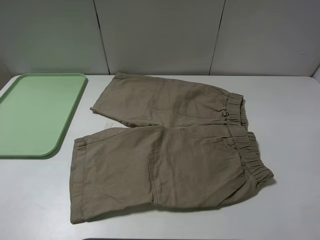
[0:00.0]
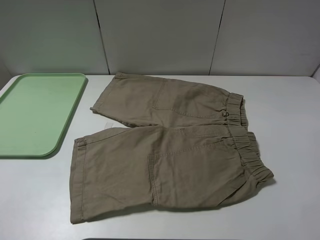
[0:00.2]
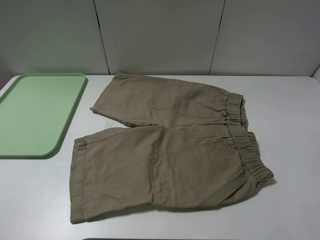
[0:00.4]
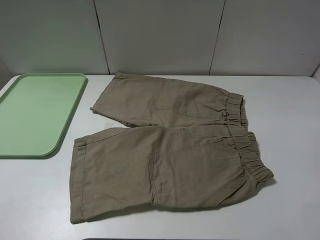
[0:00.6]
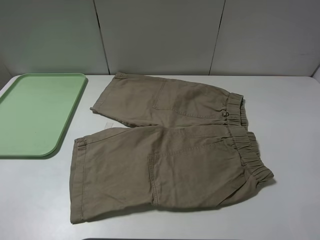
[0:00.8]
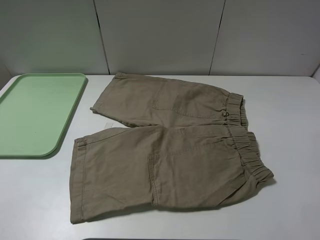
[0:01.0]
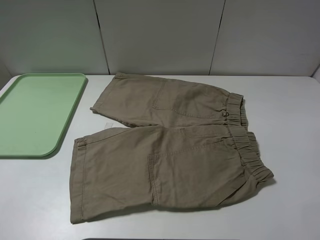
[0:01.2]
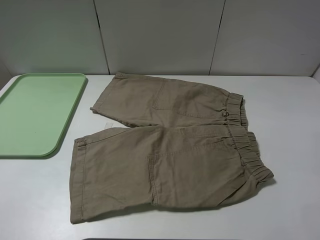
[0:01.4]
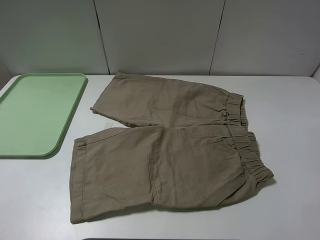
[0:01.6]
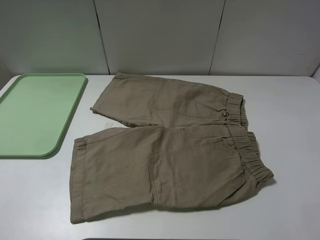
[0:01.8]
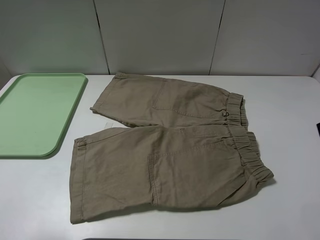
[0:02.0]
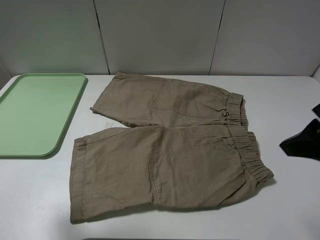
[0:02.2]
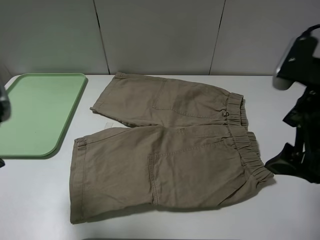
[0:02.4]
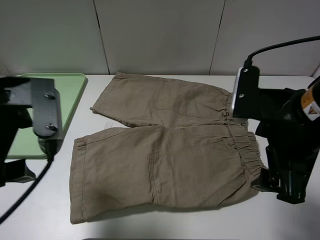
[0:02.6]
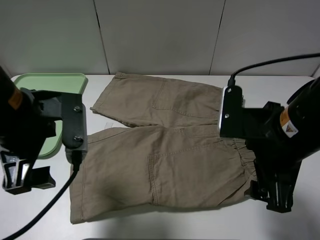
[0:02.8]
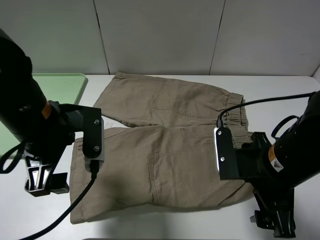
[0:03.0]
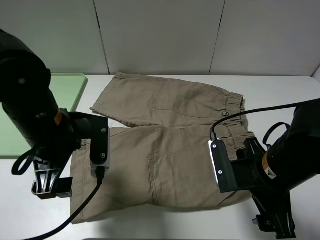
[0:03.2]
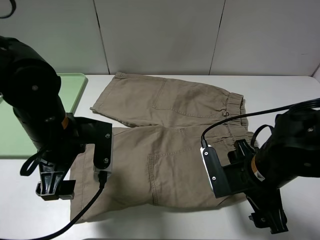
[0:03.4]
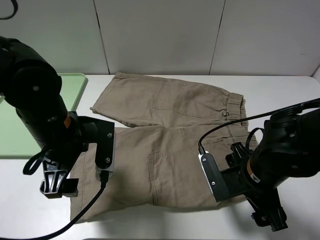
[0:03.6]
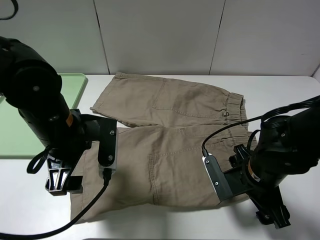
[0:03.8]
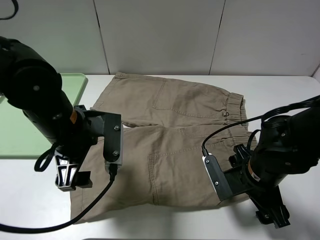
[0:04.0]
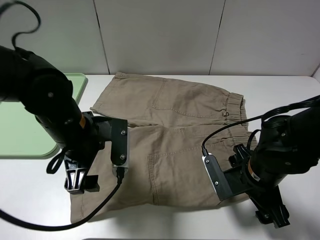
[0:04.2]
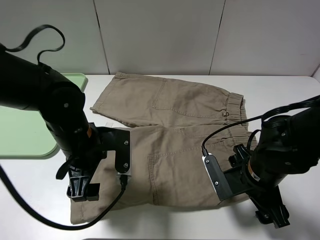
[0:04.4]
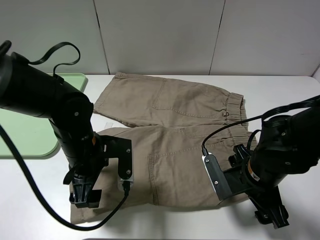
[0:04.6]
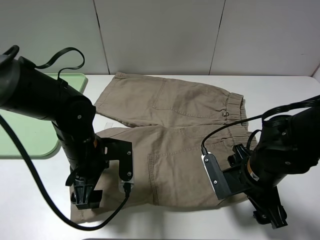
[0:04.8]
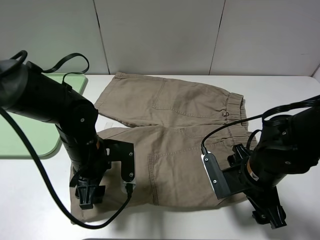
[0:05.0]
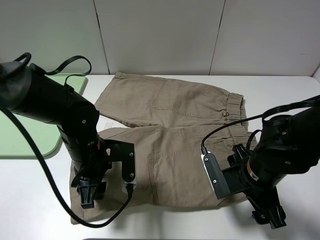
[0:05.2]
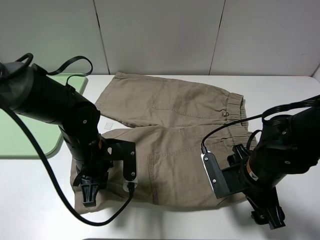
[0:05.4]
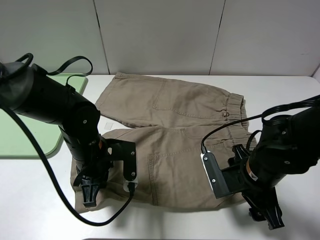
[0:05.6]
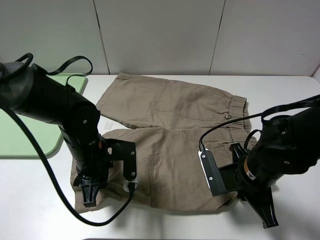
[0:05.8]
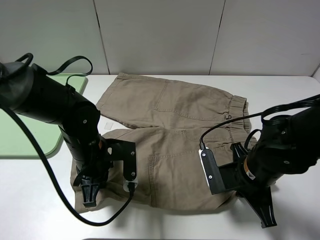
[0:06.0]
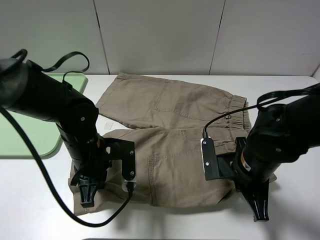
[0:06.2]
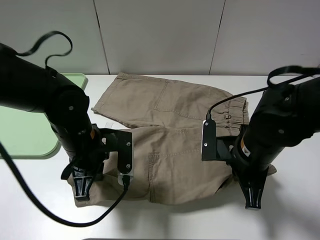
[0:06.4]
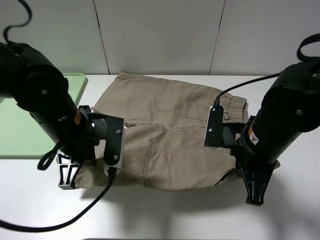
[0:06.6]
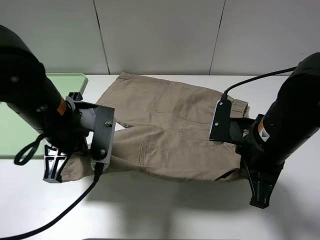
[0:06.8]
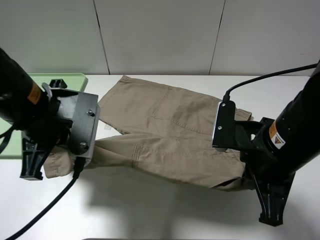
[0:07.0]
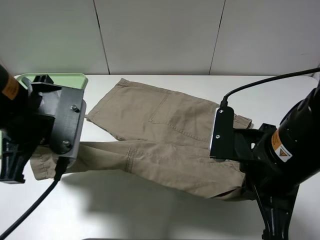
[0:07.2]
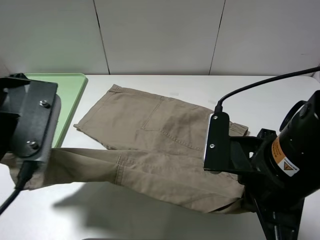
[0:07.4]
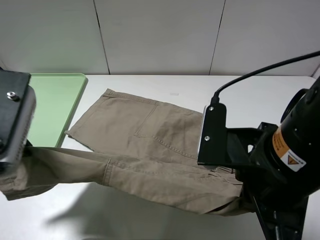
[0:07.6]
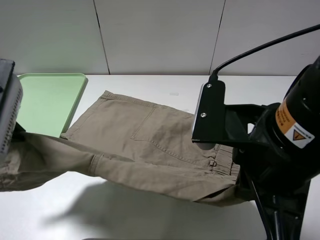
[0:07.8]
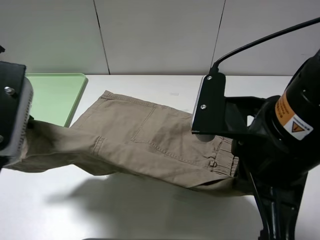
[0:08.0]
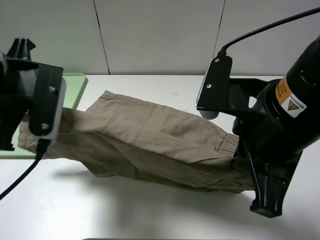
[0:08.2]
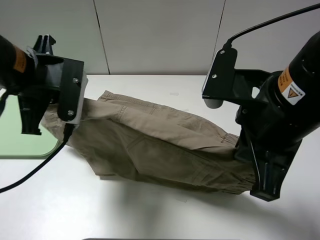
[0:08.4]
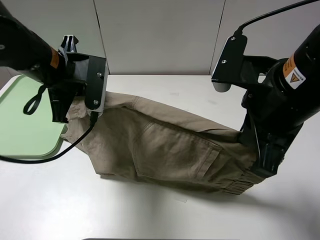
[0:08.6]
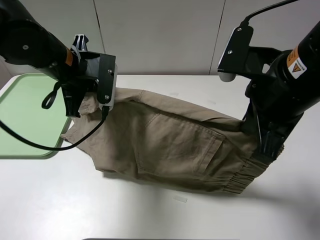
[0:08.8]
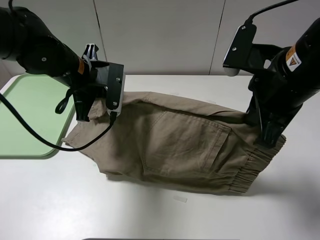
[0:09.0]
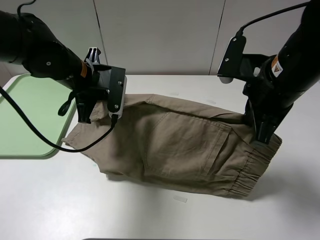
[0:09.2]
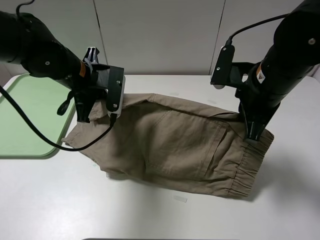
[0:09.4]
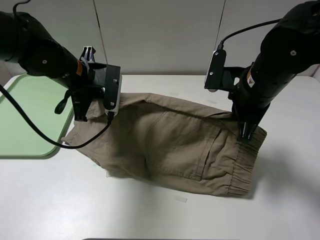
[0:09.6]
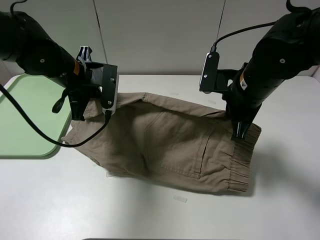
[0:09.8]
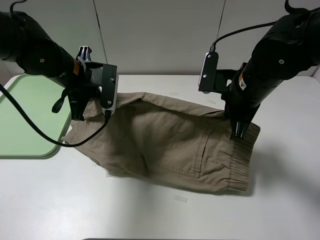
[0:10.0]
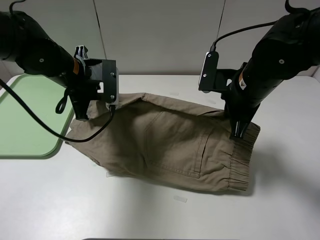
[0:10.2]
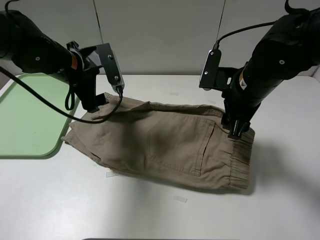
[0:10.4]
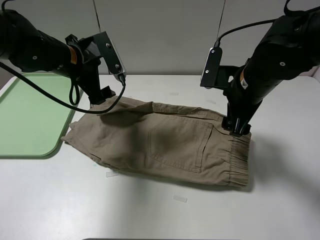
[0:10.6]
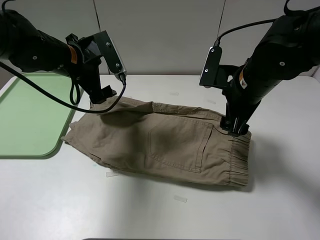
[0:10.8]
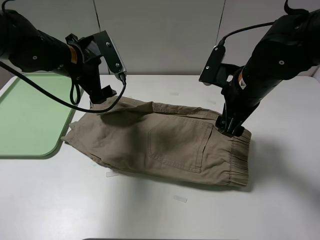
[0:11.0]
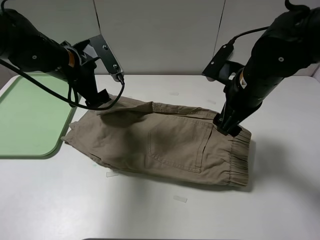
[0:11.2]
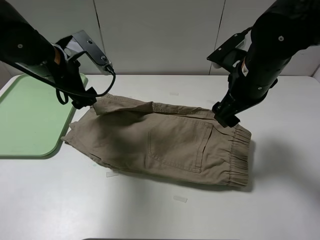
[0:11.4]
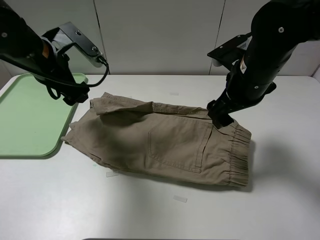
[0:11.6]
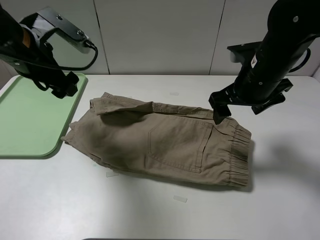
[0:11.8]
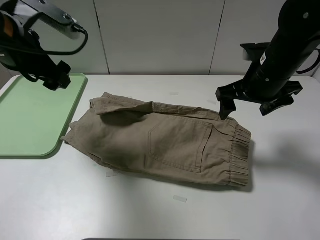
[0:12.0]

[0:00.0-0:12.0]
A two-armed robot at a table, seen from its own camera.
Task of the whole recording: fold the khaki jeans in half with two grippers, then fold them in half again, and use the left claw to place the folded fold khaki jeans on the tray.
Step, 0:00.0 to 0:05.8: Grasp the khaki trousers with the left gripper.
Step, 0:06.0 to 0:10.4: Fold the khaki trousers upwards with the left gripper.
0:01.6 to 0:03.0: The left gripper goes approximately 25 cm forward, to the right and downward; the right gripper shifts about 20 cm downward, forward and to the left.
0:03.0 to 0:04.4: The grippers both shift downward by some 5 cm.
0:04.4 to 0:06.0: The left gripper closes, while the right gripper closes.
0:06.0 to 0:07.6: The right gripper shifts roughly 15 cm upward and backward. The left gripper goes about 20 cm upward.
0:07.6 to 0:09.0: The left gripper is displaced forward and downward by some 20 cm. Meanwhile the right gripper moves forward, roughly 10 cm.
0:09.0 to 0:10.4: The right gripper moves downward and forward, roughly 10 cm, and opens up, while the left gripper opens.
0:10.4 to 0:12.0: The left gripper is displaced upward, to the left and backward by approximately 10 cm.

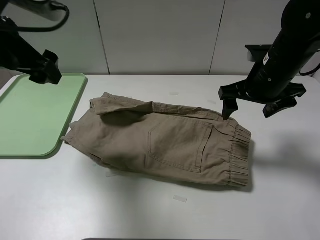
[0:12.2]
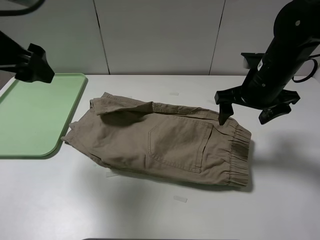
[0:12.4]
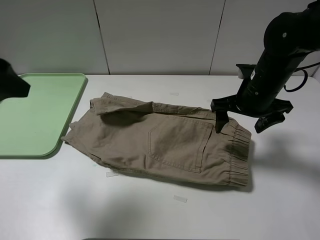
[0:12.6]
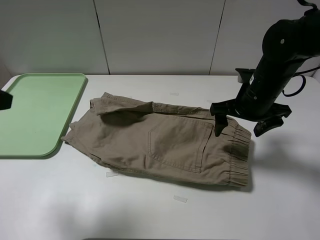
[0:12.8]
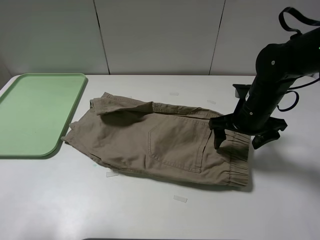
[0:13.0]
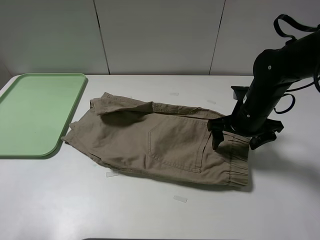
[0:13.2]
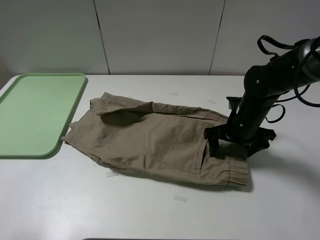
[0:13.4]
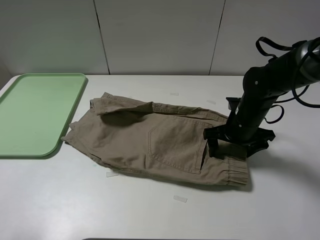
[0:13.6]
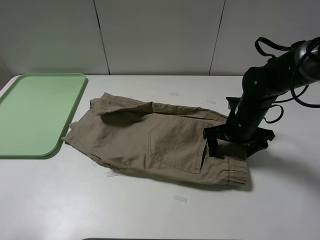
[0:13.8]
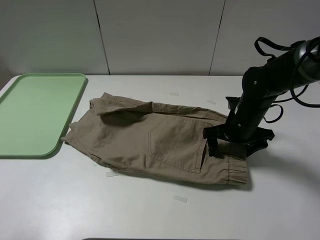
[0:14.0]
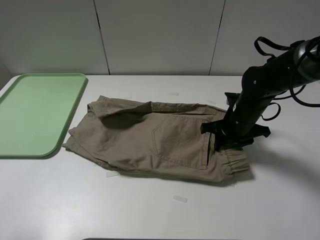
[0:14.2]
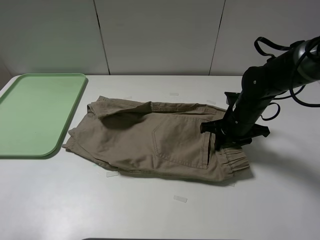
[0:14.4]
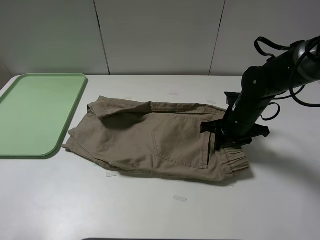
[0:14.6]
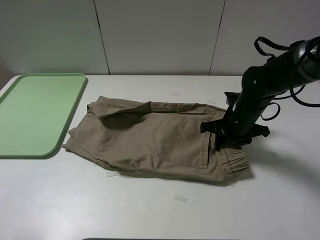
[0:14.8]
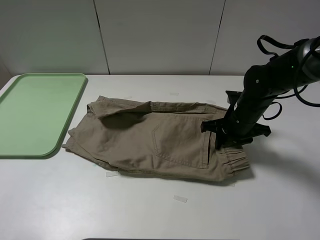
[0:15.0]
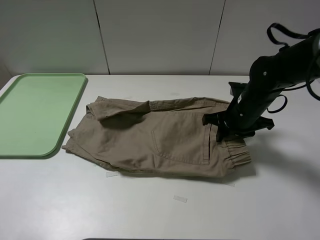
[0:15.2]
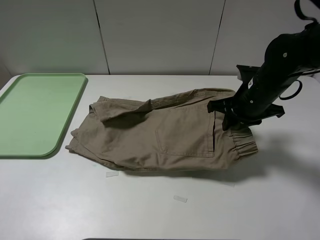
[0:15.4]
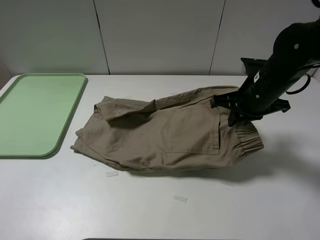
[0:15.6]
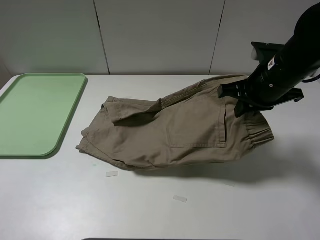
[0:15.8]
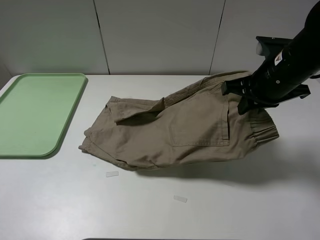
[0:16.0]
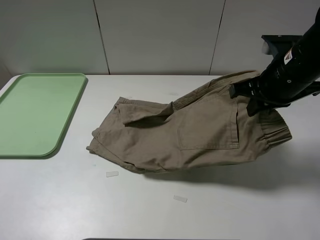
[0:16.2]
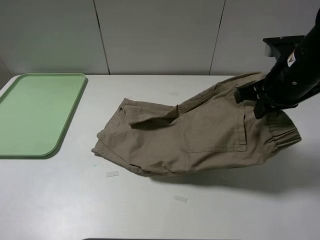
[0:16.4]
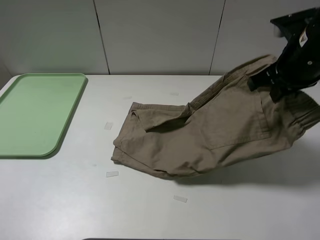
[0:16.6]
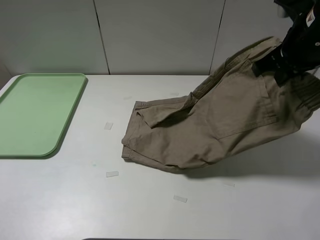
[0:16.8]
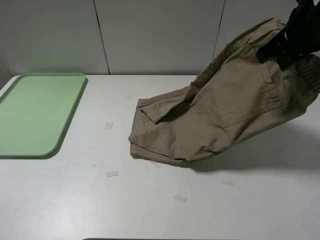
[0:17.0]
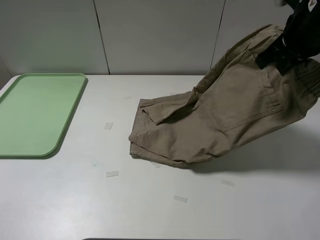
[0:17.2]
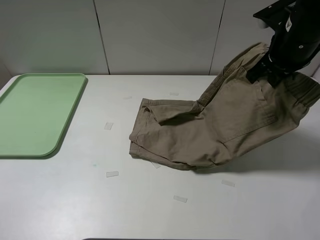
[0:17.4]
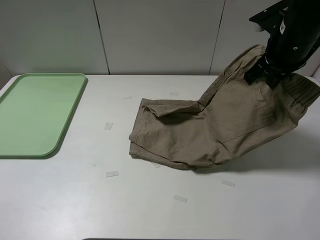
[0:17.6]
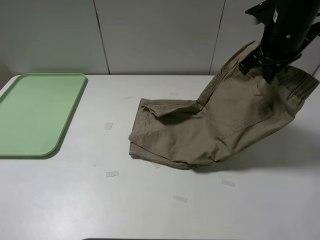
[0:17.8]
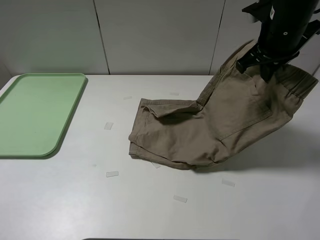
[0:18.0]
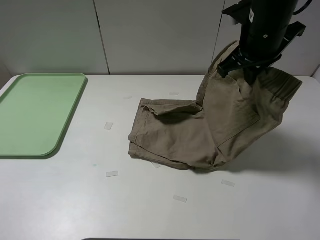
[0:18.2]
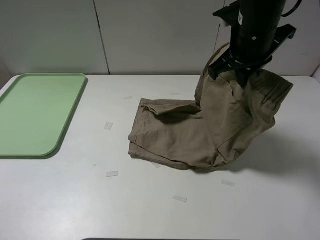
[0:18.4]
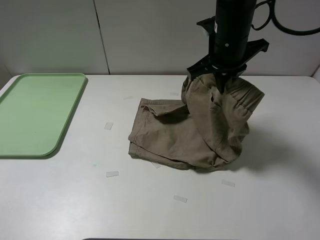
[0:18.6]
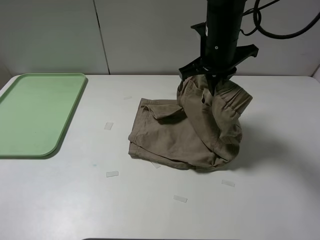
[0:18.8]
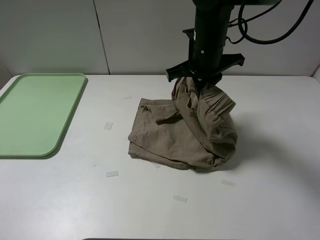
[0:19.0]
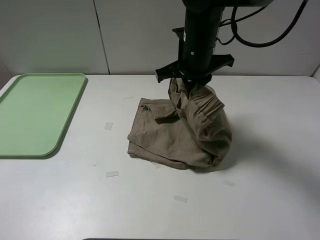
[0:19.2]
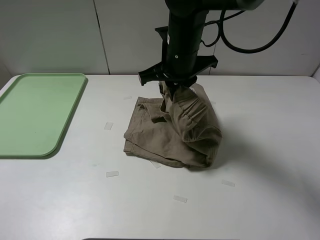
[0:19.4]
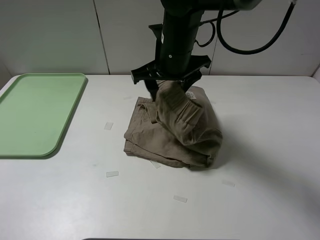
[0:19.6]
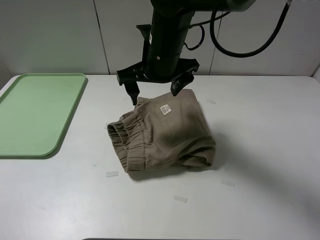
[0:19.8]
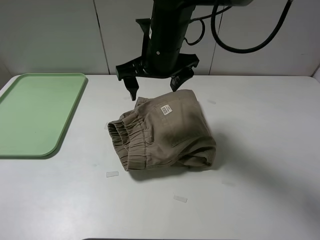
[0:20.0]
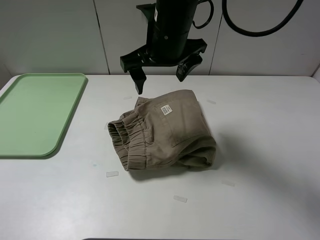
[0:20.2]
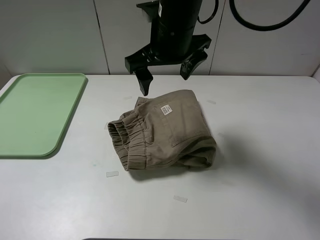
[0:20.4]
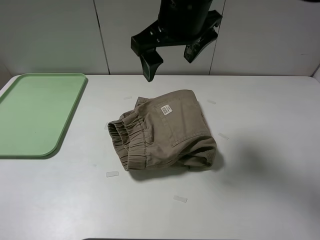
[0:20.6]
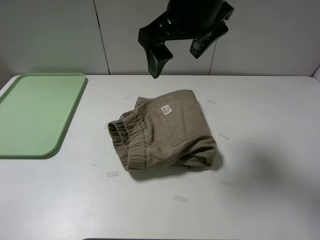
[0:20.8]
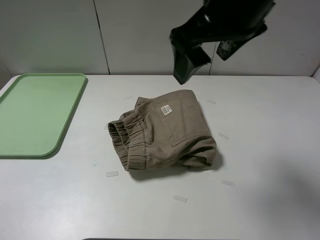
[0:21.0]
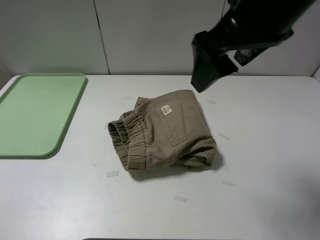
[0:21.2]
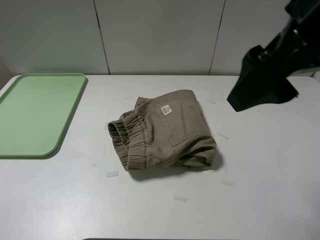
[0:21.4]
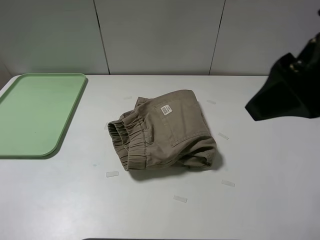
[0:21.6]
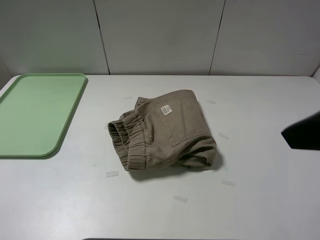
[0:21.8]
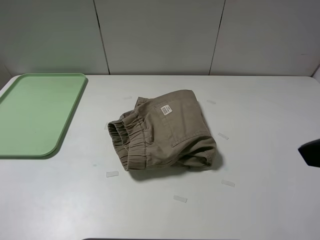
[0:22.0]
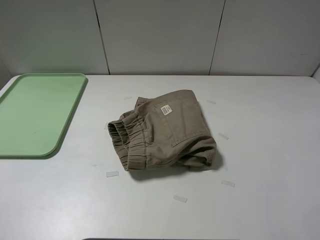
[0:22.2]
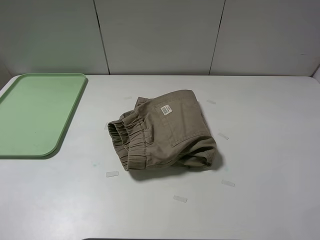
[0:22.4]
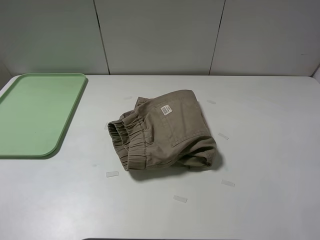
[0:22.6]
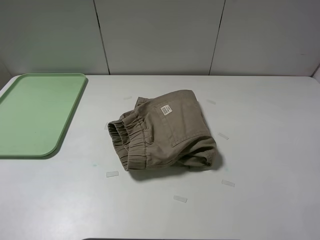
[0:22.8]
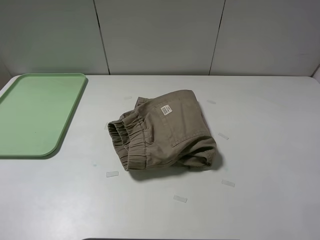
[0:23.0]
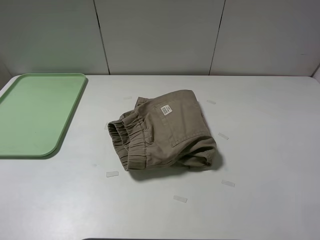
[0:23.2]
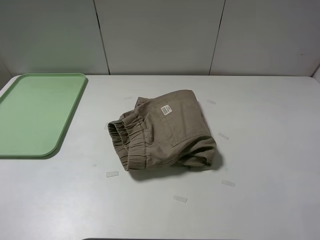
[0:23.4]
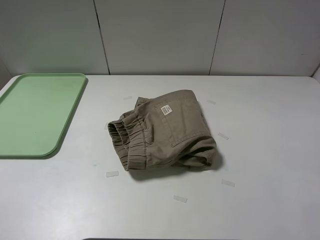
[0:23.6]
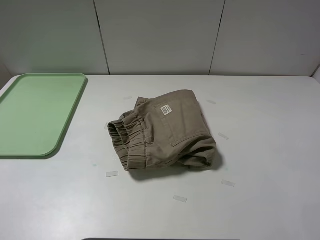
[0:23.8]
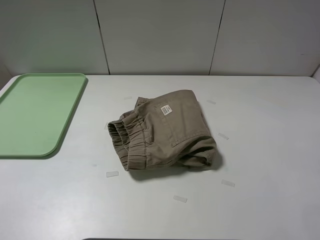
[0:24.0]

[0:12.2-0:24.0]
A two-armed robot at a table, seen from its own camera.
Task of the whole recording: fold the khaki jeans in half with two grippers, then fold them in half again, and use the left claw to place the folded fold khaki jeans on the tray.
Step, 0:12.2 to 0:14.8: Grasp the khaki trousers with the right gripper.
Step, 0:15.0 to 0:19.8: Fold the khaki trousers from right to left with the right gripper.
0:12.2 to 0:13.6: The left gripper heads backward and to the left, covering roughly 20 cm, while the right gripper is displaced downward by about 15 cm.
0:13.6 to 0:15.2: The right gripper closes its fingers.
0:15.2 to 0:16.6: The right gripper goes about 15 cm upward.
0:16.6 to 0:18.2: The right gripper heads to the left, covering approximately 5 cm.
0:18.2 to 0:19.6: The right gripper shifts some 15 cm to the left, and opens.
0:19.6 to 0:21.0: The right gripper heads upward, backward and to the right, covering roughly 20 cm.
0:21.0 to 0:22.6: The right gripper shifts roughly 30 cm backward and to the right.
